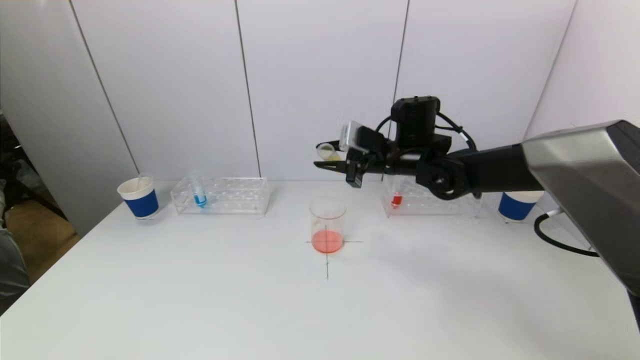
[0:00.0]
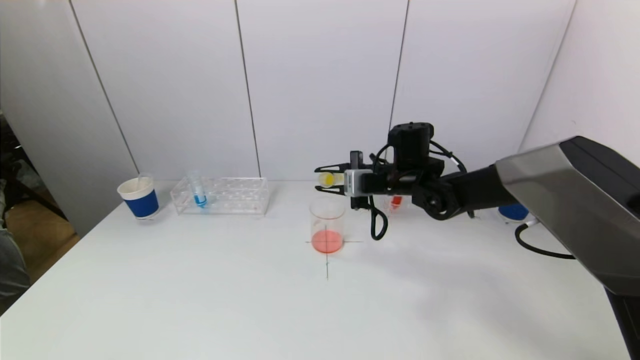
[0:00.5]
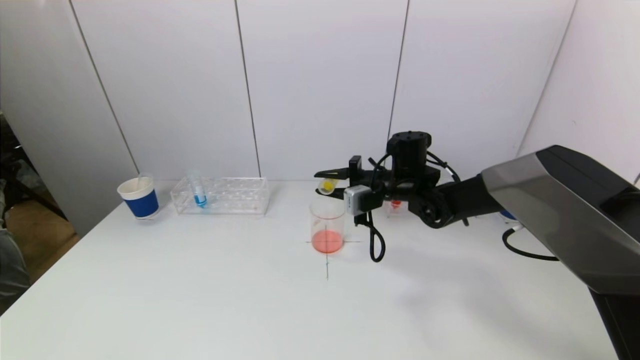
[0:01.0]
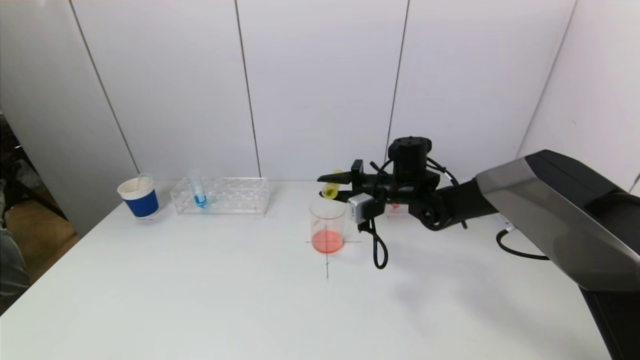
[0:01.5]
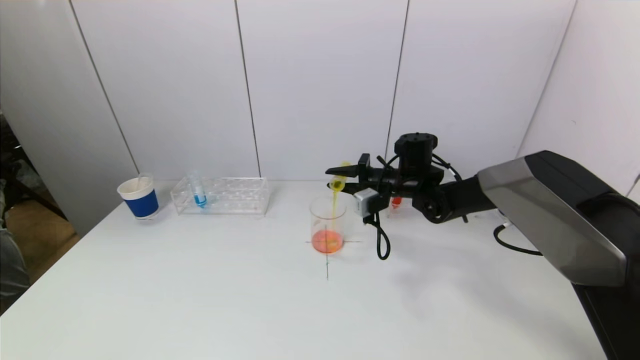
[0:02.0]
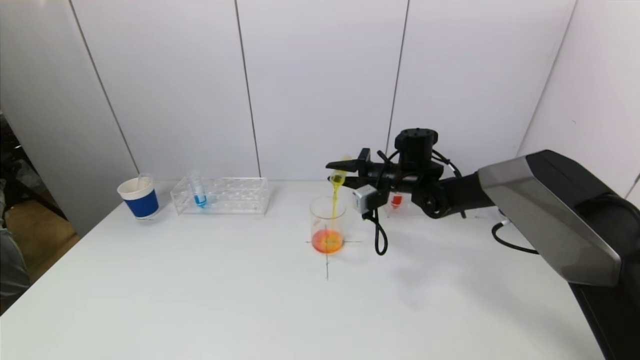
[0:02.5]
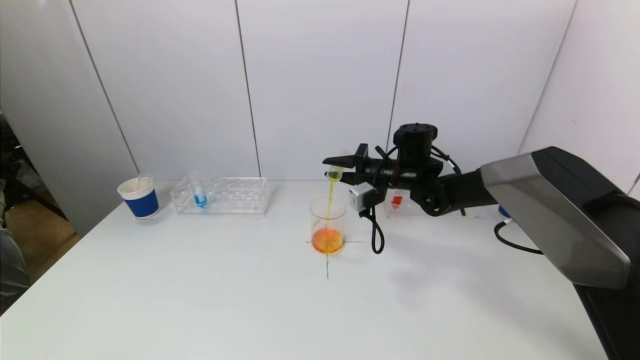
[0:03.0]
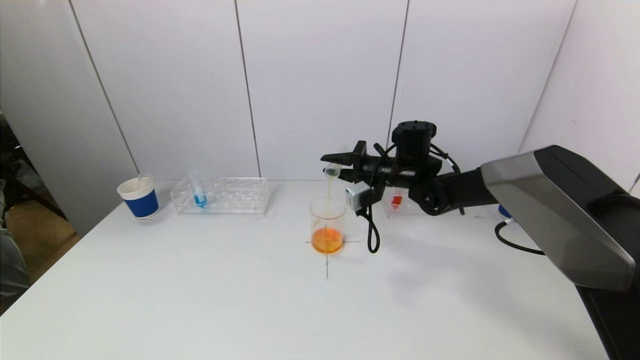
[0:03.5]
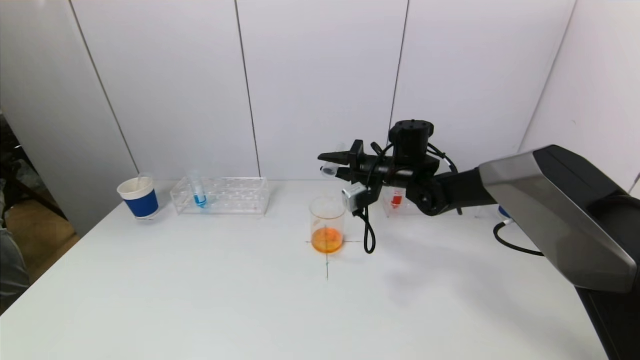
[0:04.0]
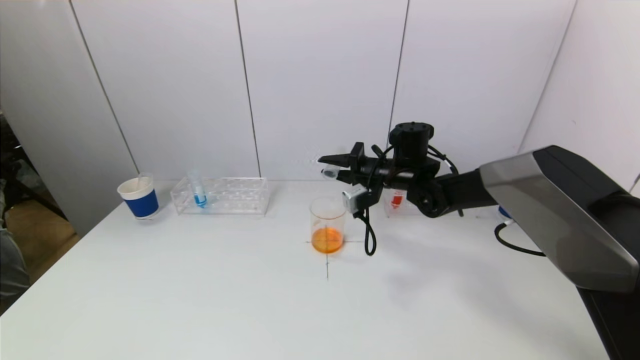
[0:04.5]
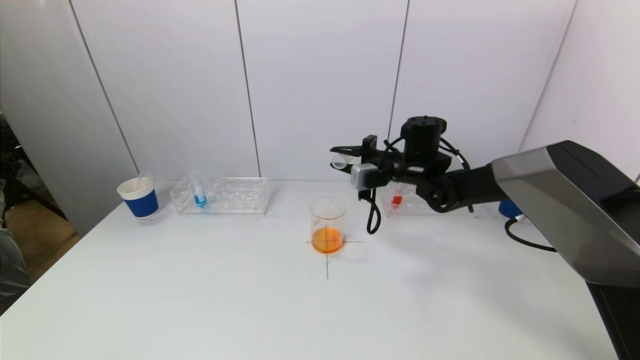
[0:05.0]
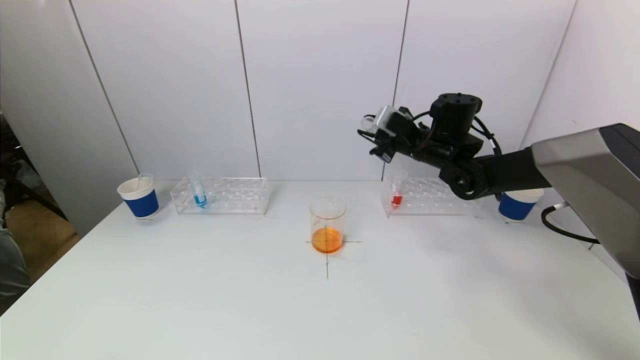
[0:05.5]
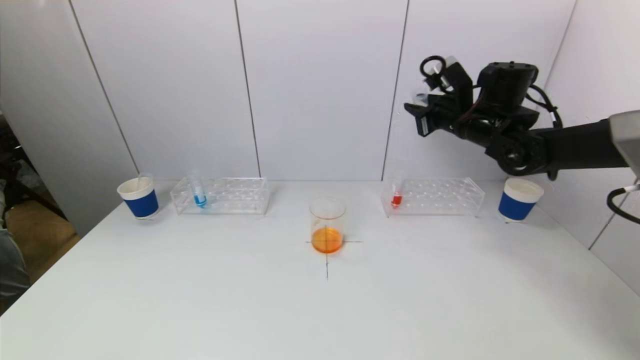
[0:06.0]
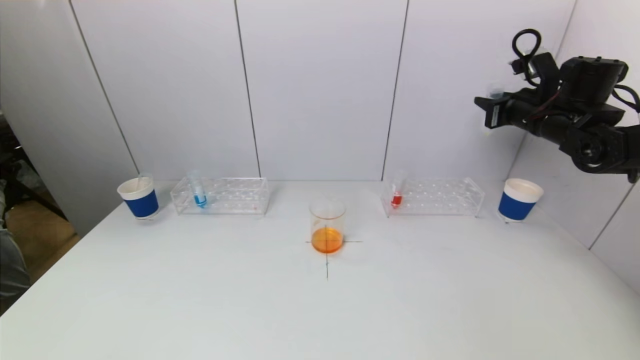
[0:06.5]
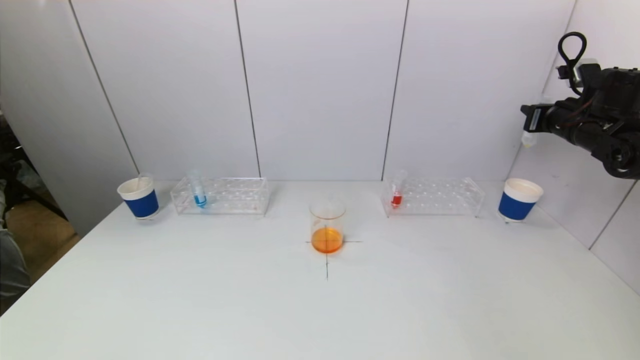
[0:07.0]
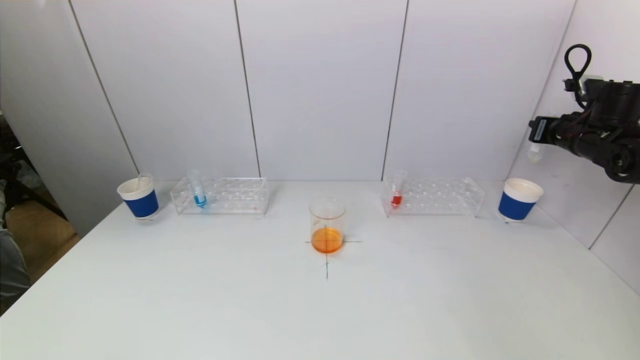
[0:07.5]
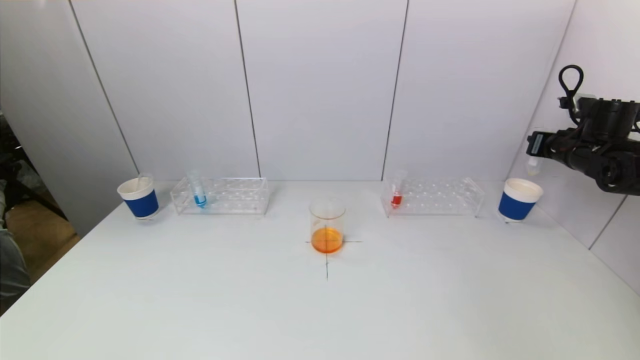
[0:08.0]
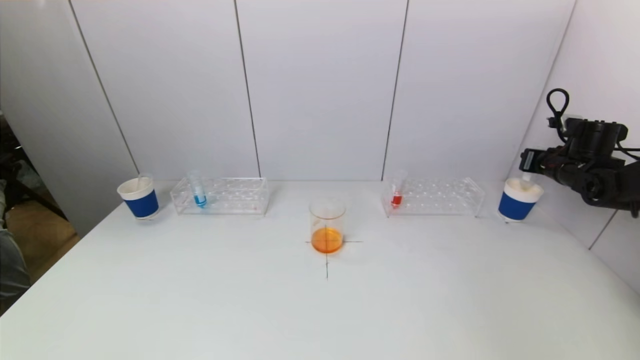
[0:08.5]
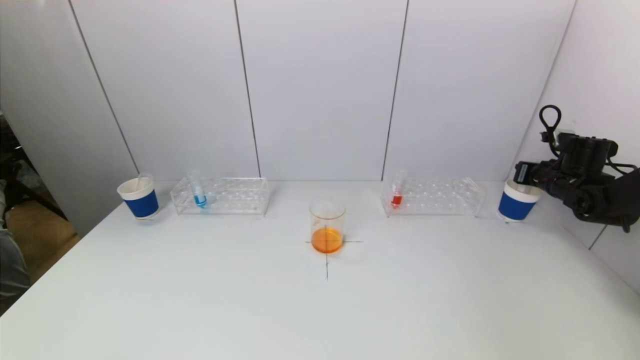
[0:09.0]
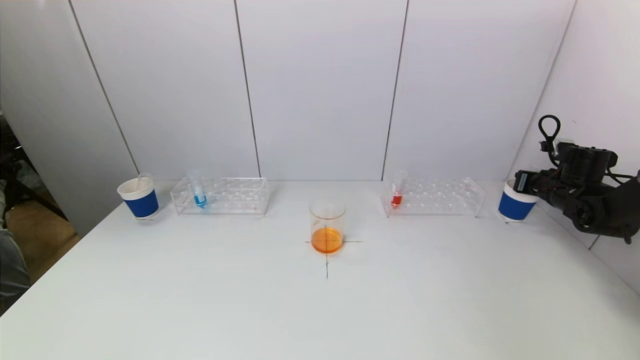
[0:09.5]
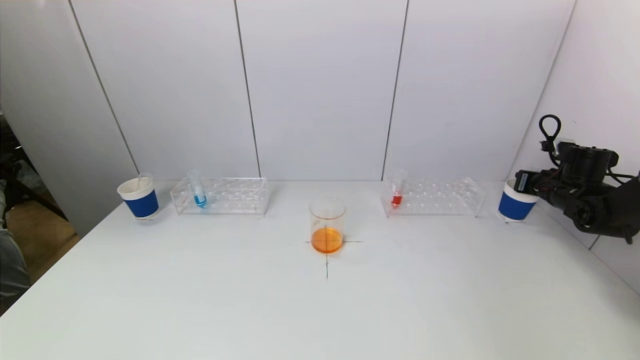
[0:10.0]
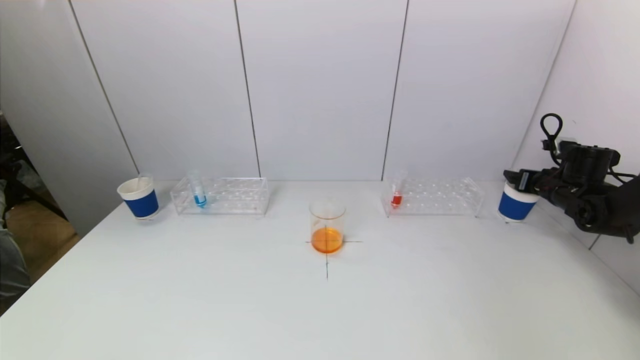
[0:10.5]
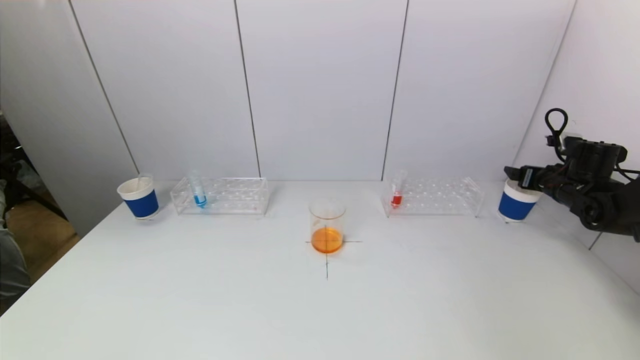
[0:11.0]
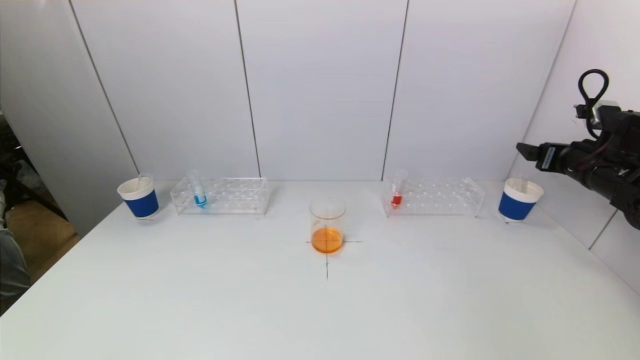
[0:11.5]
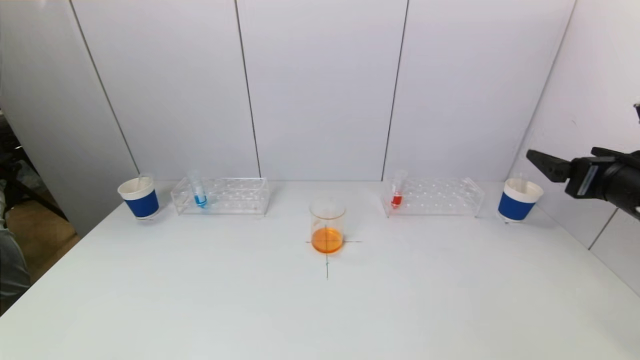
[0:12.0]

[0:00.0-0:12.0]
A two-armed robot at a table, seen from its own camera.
Task of the whole recording: pick up a test tube with pigment on left test tube rack and a test tube with pigment on right test tube rack by grippers and pour them into the beaker.
Step, 0:00.0 to 0:04.0: Pour the yellow reagent into the graduated cylinder with the right gripper.
Step, 0:04.5 to 0:10.5: Place the test tube into the paper cup with the right gripper.
0:00.0 to 0:02.0: The right gripper moves downward, roughly 10 cm.
0:02.0 to 0:04.0: There are only small adjustments of the grippers.
0:04.0 to 0:06.0: The right gripper travels to the right and upward by roughly 15 cm.
0:06.0 to 0:08.0: The right gripper is displaced to the right by roughly 20 cm.
0:08.0 to 0:10.0: The right gripper goes some 10 cm downward.
0:10.0 to 0:12.0: The right gripper goes some 25 cm backward, upward and to the left, and opens up.

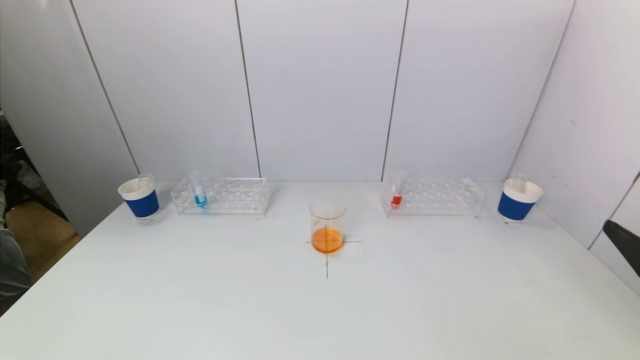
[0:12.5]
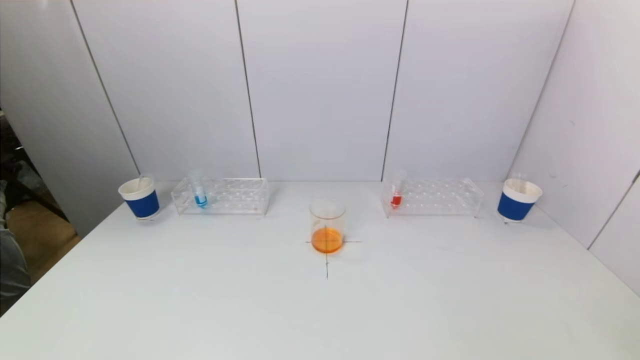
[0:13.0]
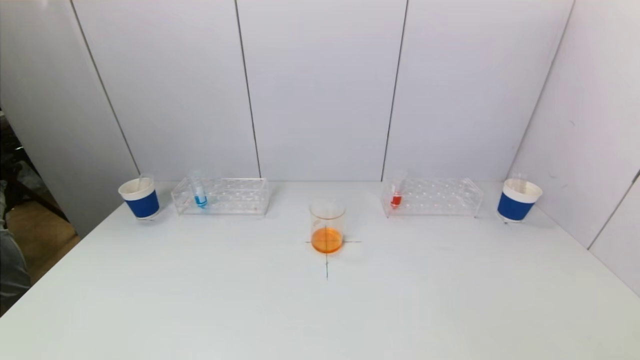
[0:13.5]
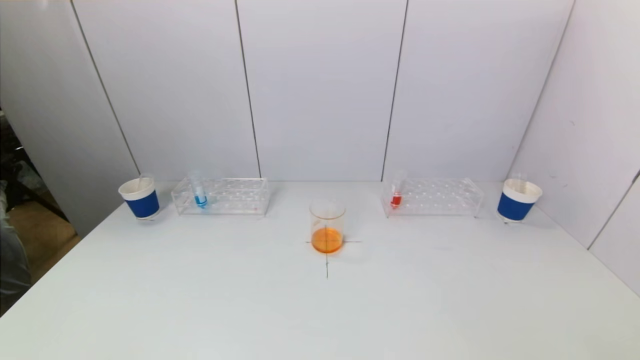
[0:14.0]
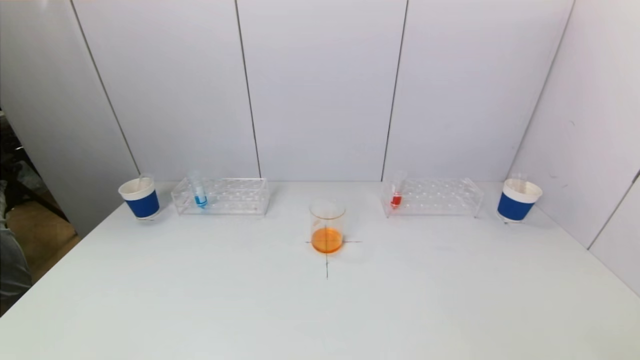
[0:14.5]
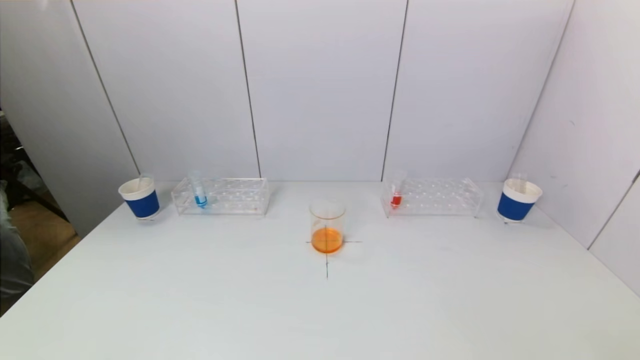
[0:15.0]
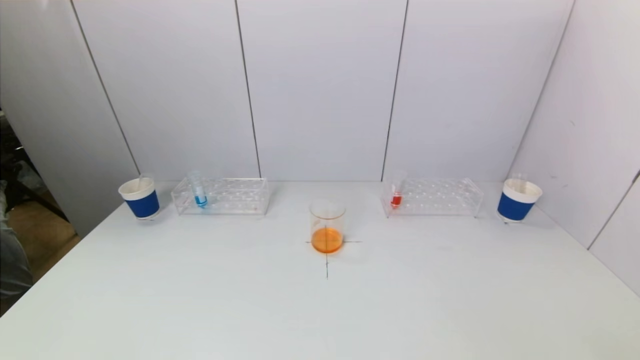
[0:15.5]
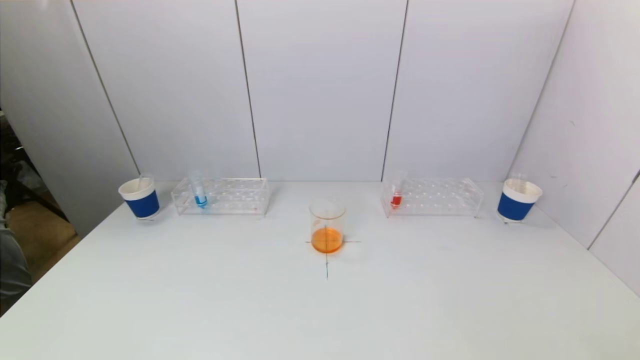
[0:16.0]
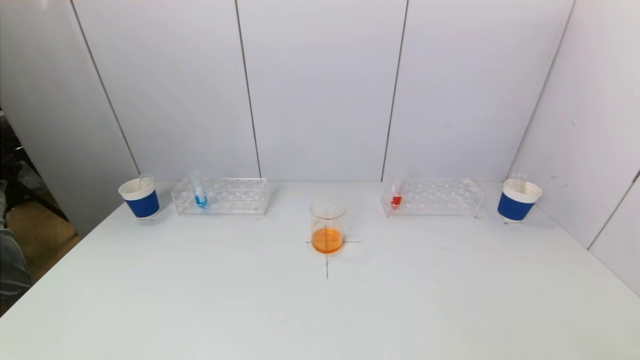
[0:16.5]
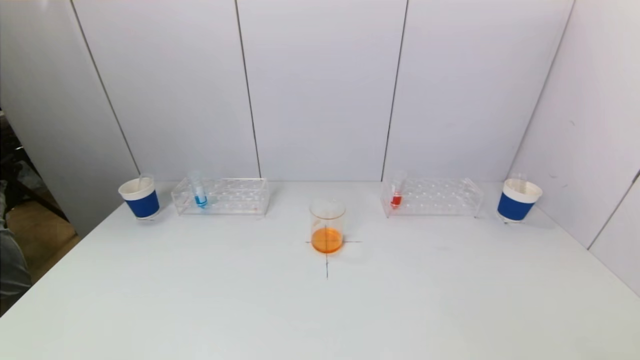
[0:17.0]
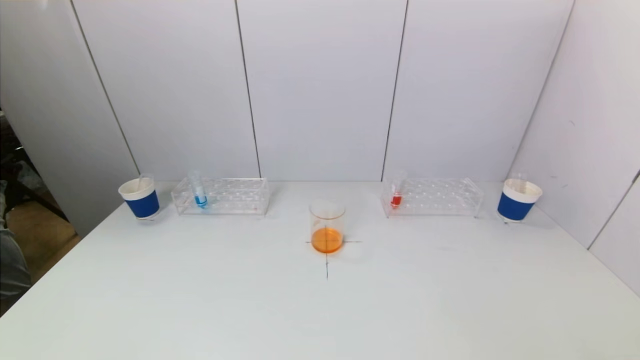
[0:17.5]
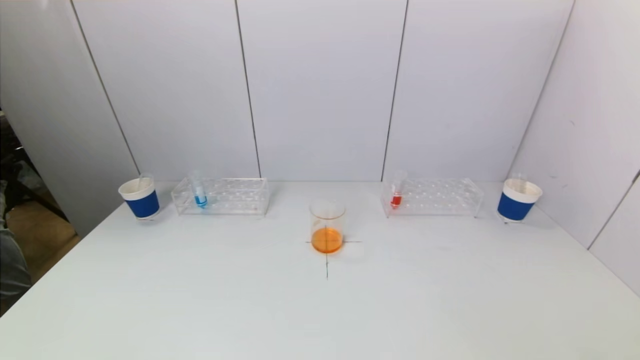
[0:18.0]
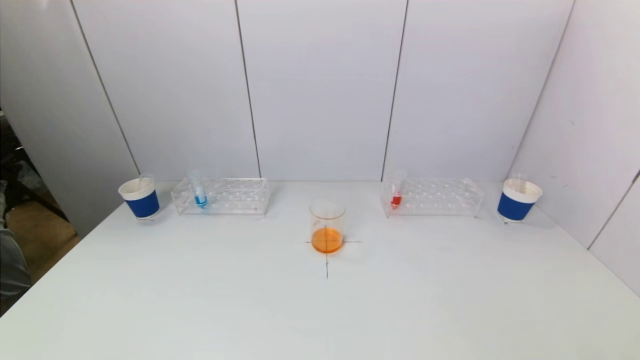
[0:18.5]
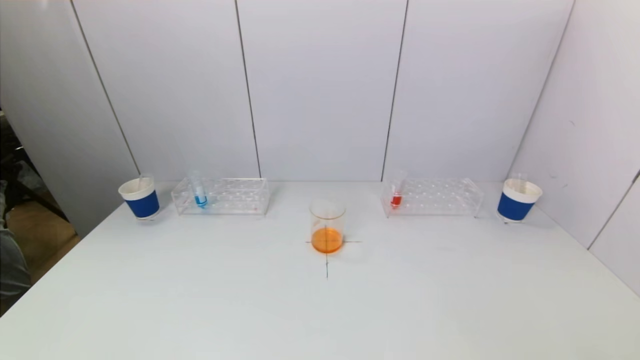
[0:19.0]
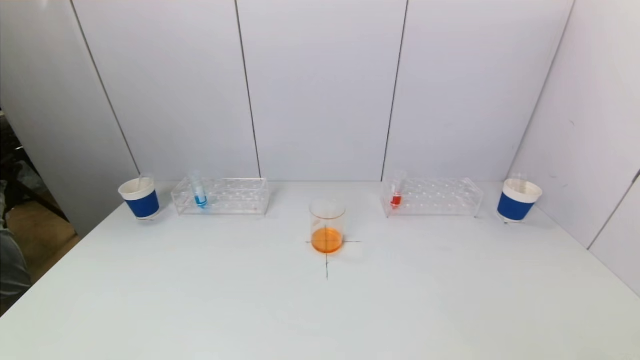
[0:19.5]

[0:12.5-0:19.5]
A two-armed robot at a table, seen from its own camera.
Task of the whole recording: pick up a test tube with pigment on left test tube rack and a test tube with pigment on right test tube rack by grippers and pour them into the beaker.
0:12.5 to 0:14.5: The right gripper goes approximately 15 cm backward and downward.
0:17.5 to 0:19.5: The two grippers keep their place.
